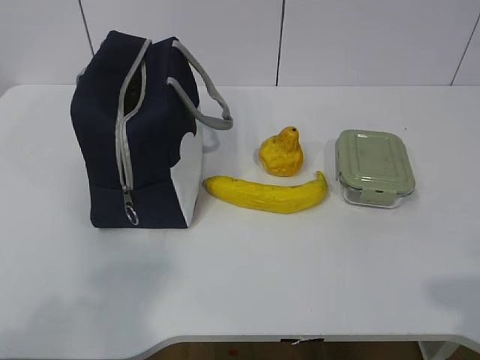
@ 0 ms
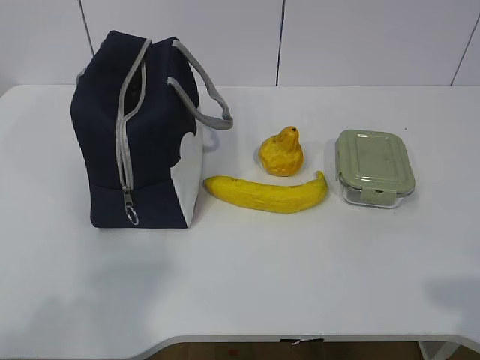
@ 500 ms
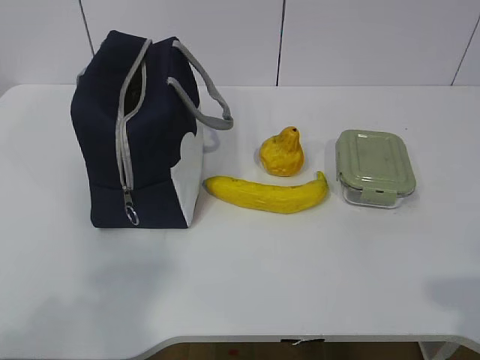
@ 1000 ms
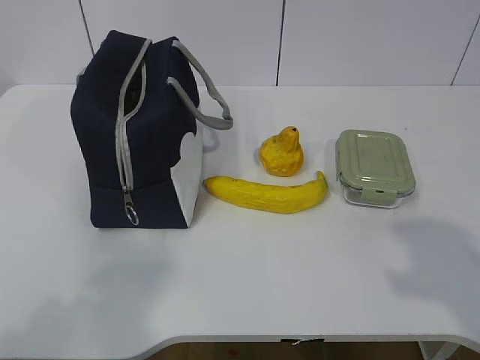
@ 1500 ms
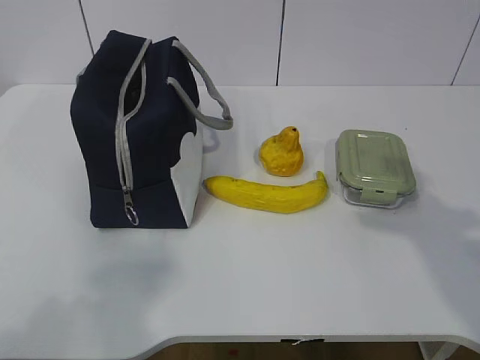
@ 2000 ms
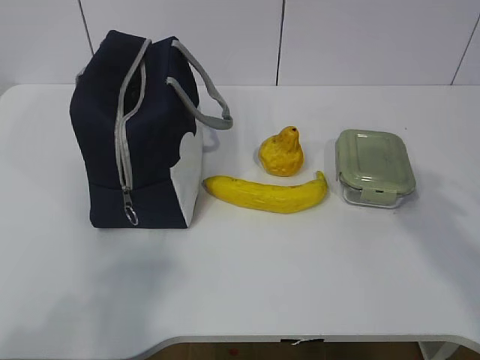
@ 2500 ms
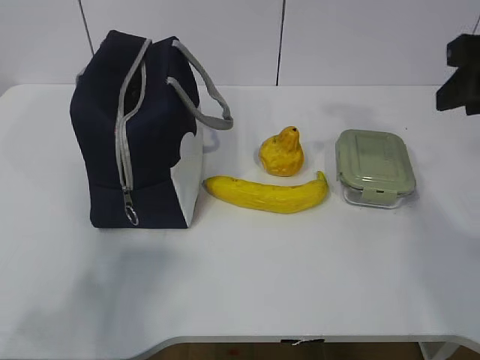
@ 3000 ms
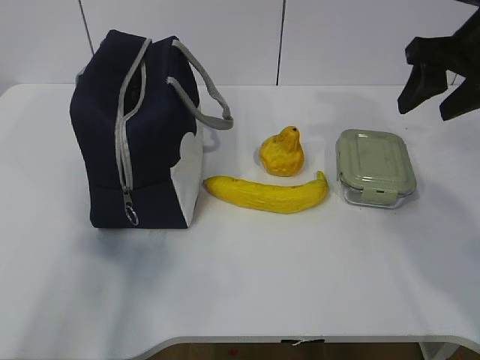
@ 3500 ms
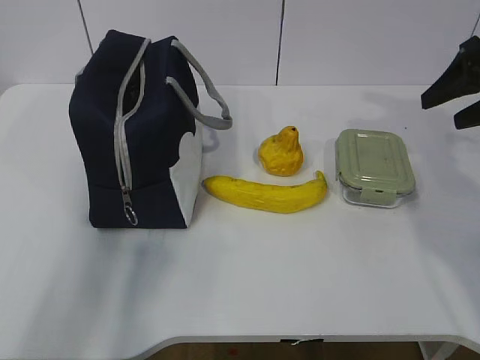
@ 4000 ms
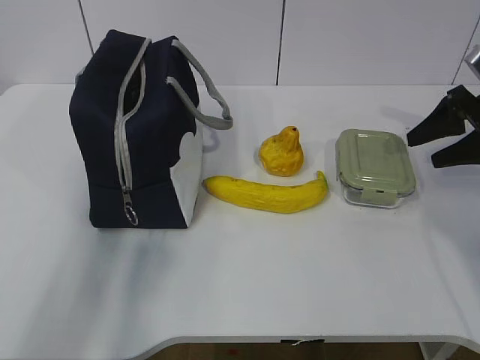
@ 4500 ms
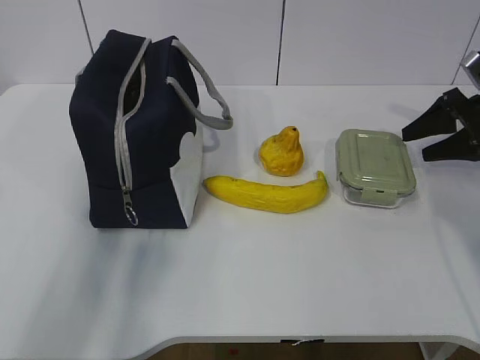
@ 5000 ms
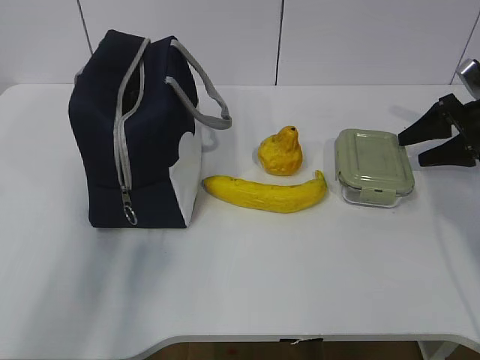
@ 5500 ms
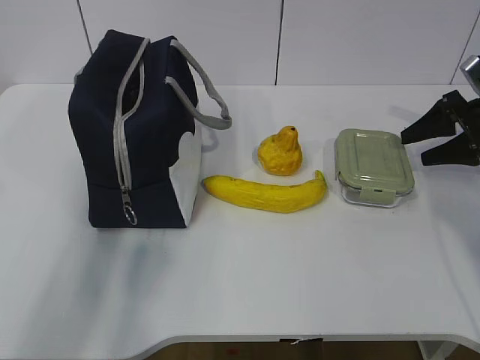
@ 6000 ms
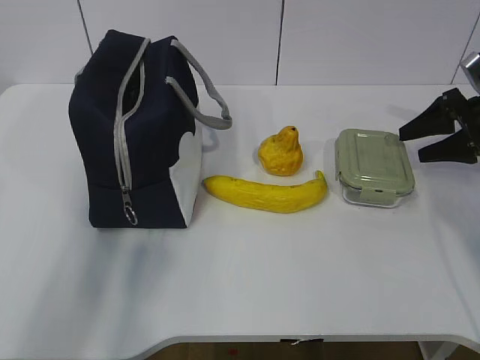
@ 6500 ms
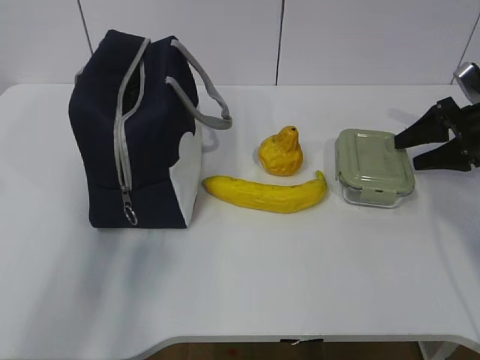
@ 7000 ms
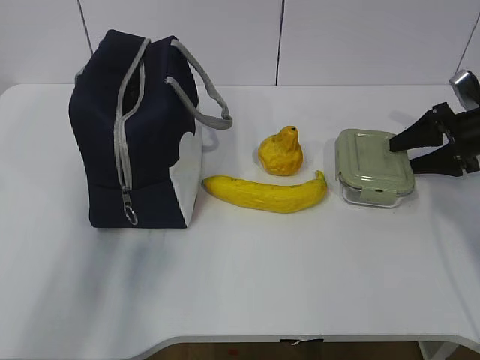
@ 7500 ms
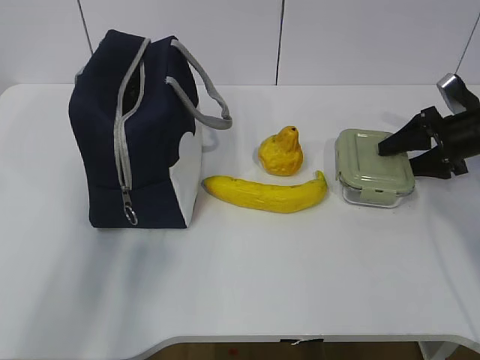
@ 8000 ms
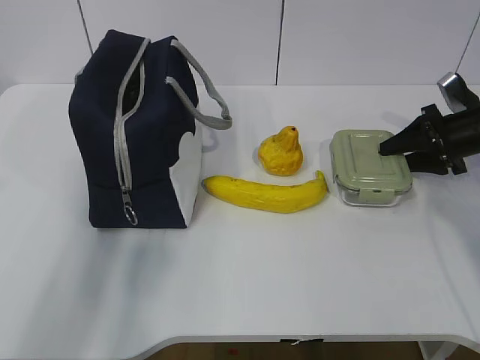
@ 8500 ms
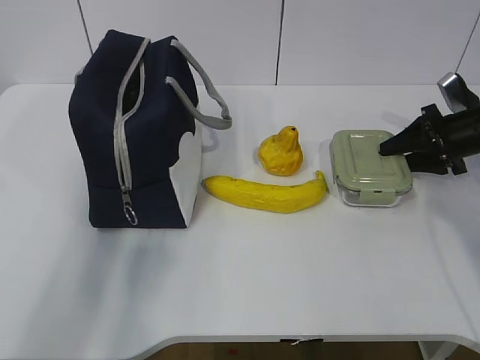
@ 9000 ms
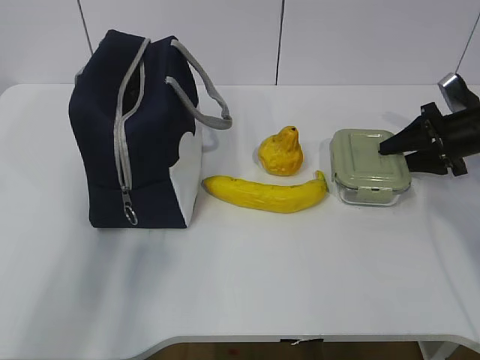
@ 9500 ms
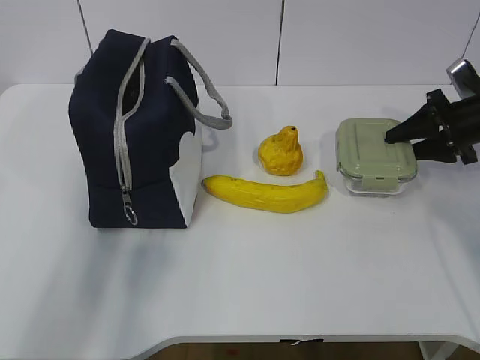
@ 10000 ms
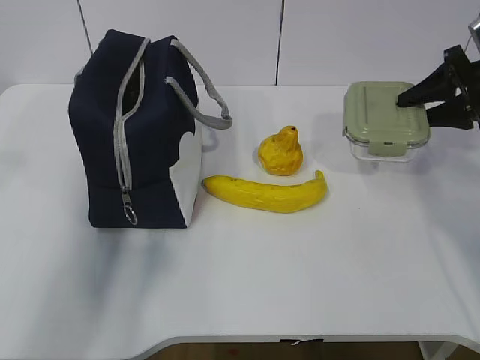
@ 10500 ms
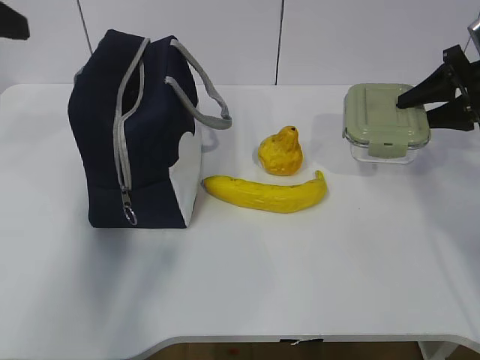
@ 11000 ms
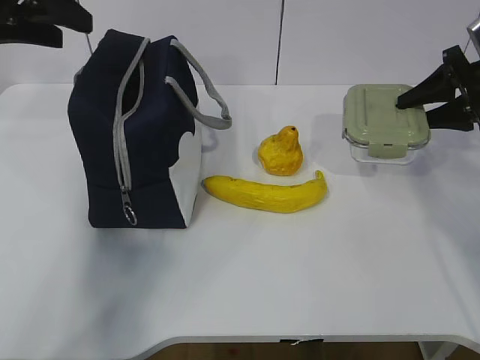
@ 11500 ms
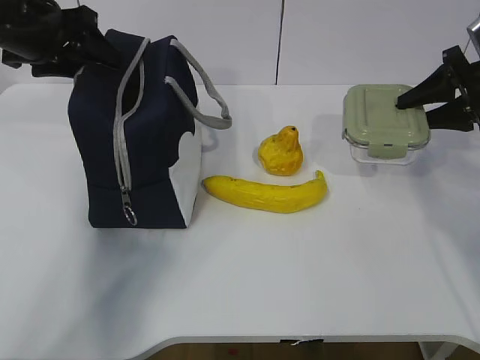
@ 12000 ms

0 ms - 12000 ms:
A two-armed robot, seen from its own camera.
Step, 0 ms - 8500 ms: Grasp the box with the right gripper.
2000 ms - 4000 ms: The right gripper moves forward, roughly 25 cm, and opens up. The left gripper is displaced forward and upward by some 15 cm.
4000 ms - 6000 ms: The right gripper moves downward, some 10 cm.
6000 ms - 10000 ms: The grippers stay close to where they were, moving slightly.
10000 ms - 12000 ms: The right gripper goes approximately 5 cm upward. Meanwhile the left gripper goes about 25 cm forward, and opens up.

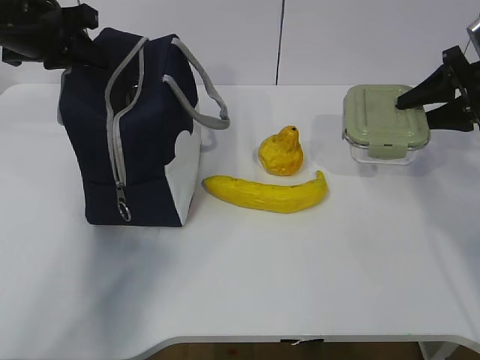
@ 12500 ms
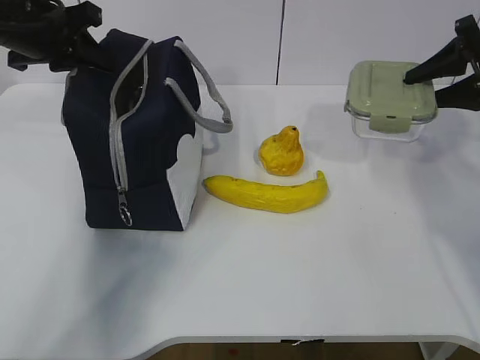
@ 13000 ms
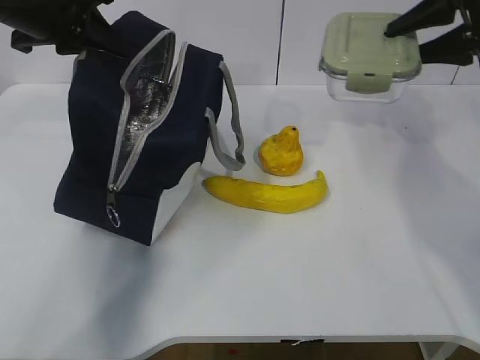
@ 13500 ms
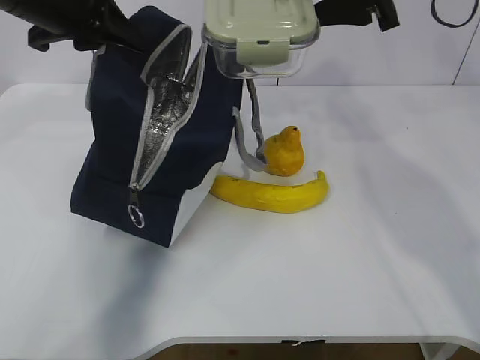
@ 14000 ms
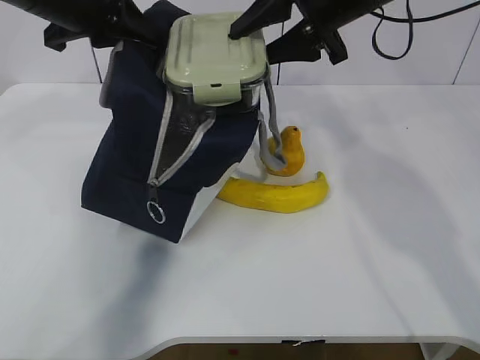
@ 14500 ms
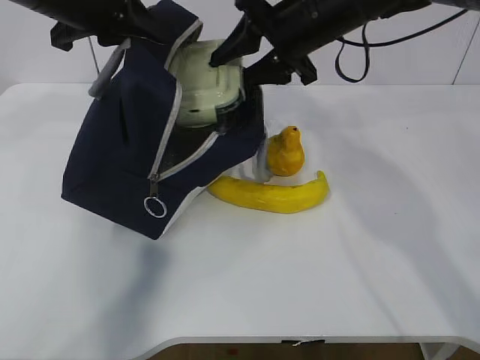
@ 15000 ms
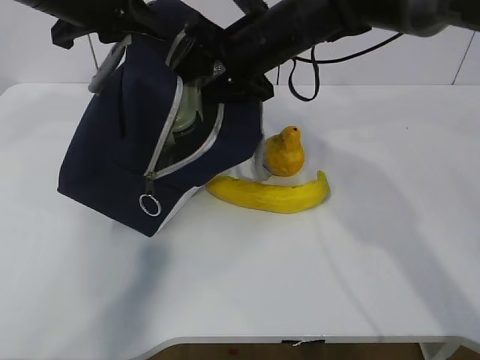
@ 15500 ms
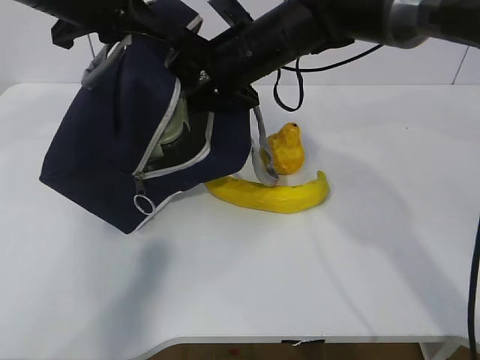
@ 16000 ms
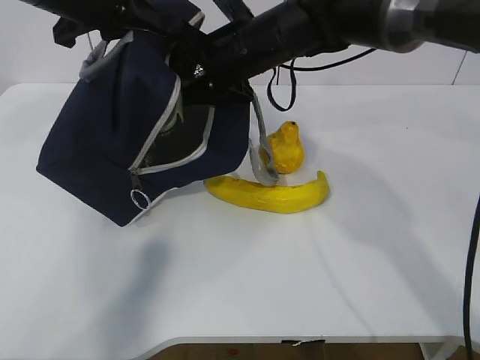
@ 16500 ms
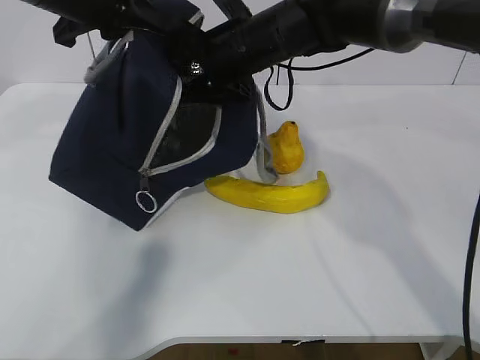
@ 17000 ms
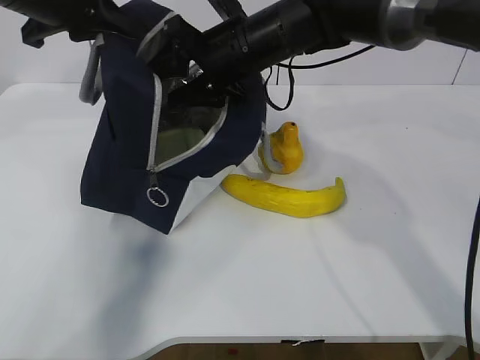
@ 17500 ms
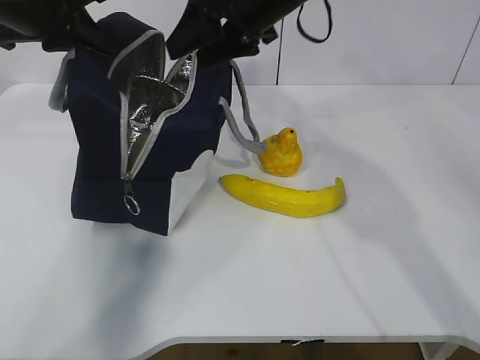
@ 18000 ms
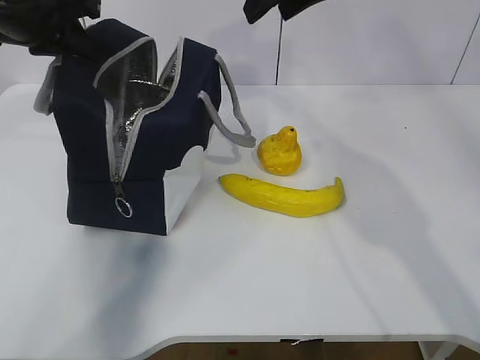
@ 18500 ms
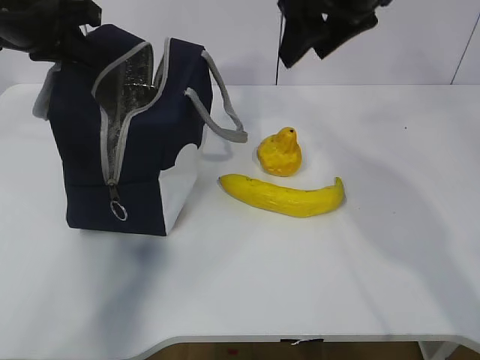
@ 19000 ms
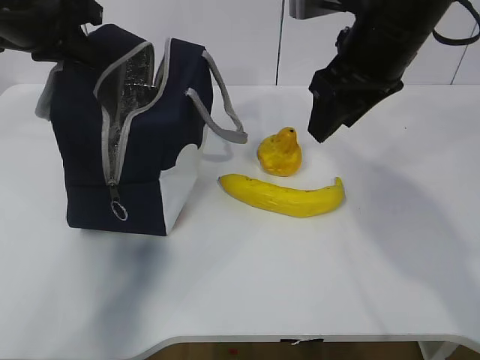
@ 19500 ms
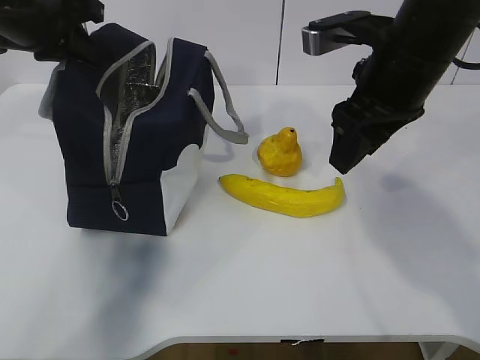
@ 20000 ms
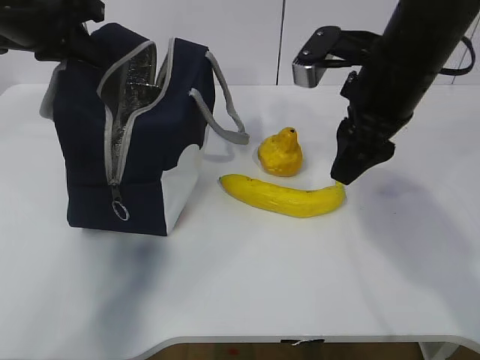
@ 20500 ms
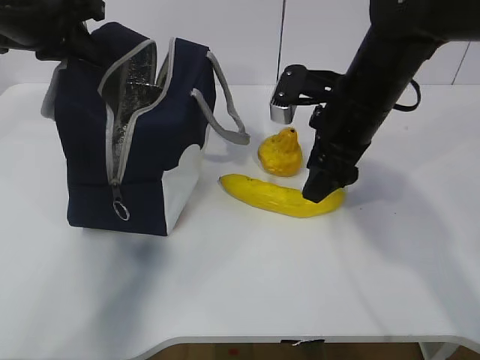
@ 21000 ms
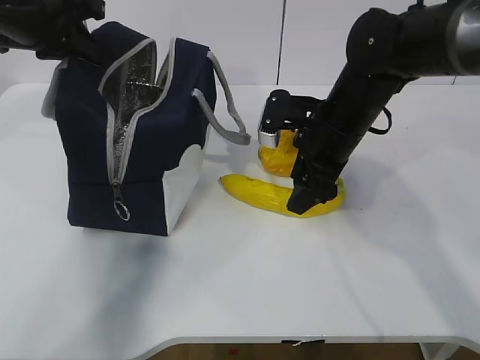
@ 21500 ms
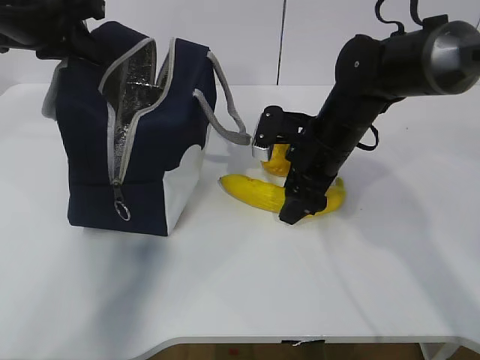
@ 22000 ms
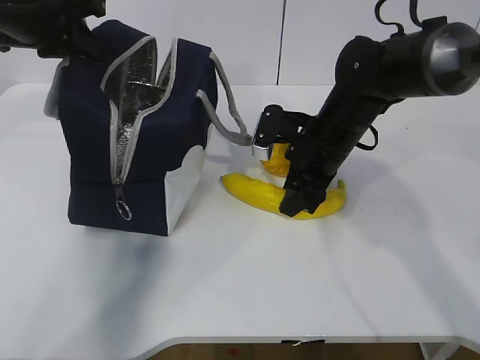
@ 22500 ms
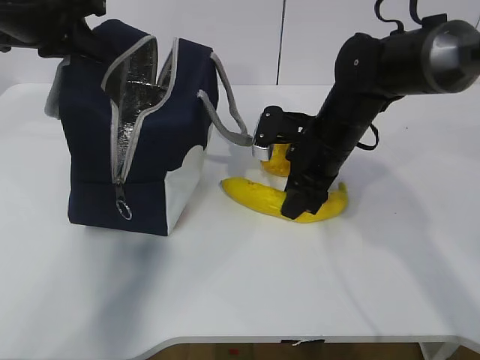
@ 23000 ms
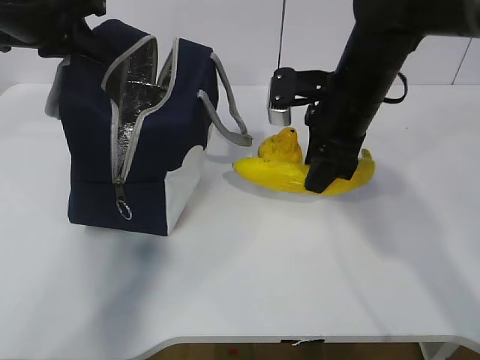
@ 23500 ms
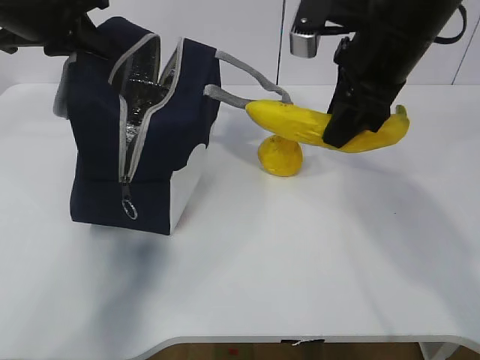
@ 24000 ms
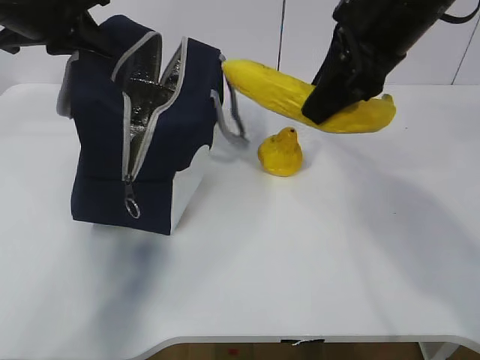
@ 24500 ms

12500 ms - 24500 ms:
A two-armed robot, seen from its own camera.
Step, 13000 ms - 17500 ms: Place the box into the package with the right gripper.
Step, 18000 ms - 22500 ms: Grasp the banana with the right gripper.
12500 ms - 14500 ms: The left gripper is displaced to the right by roughly 5 cm, while the right gripper heads to the left and upward, covering some 25 cm.
14500 ms - 16500 ms: The right gripper moves to the left and downward, roughly 10 cm.
16500 ms - 18500 ms: The right gripper heads upward and to the right, covering approximately 15 cm; the left gripper heads to the left, covering approximately 5 cm.
18500 ms - 20500 ms: The right gripper travels backward and downward by some 15 cm.
20500 ms - 22500 ms: The right gripper travels downward and forward by about 15 cm.
22500 ms - 24500 ms: The right gripper moves upward, about 20 cm.

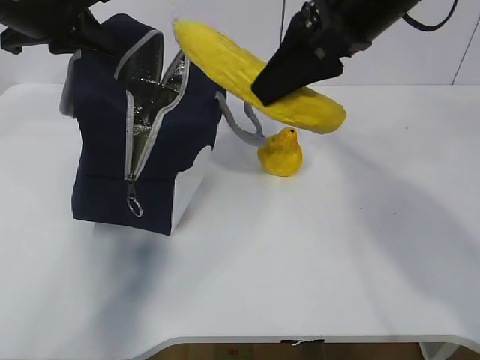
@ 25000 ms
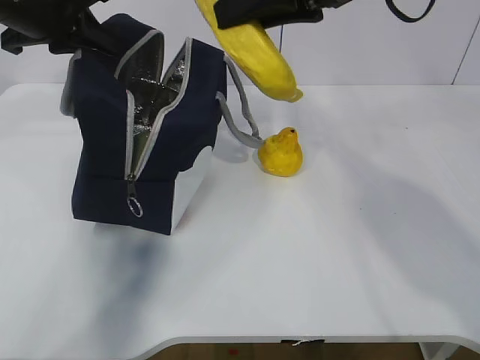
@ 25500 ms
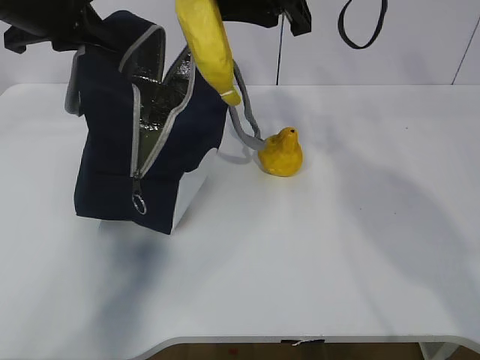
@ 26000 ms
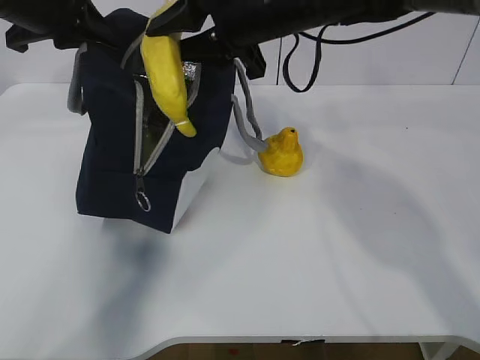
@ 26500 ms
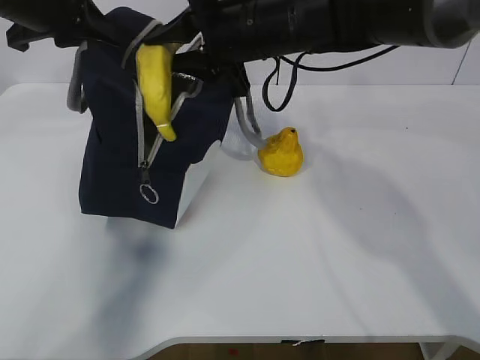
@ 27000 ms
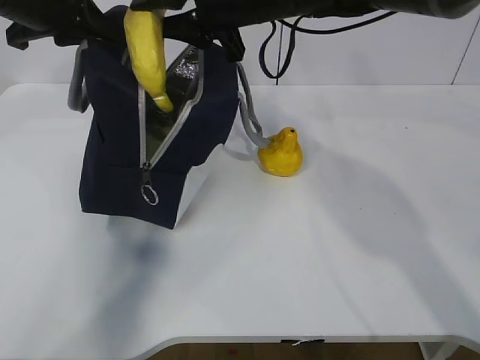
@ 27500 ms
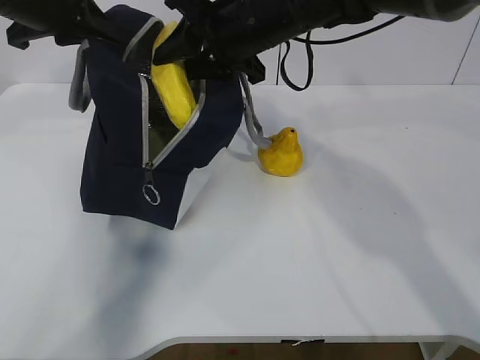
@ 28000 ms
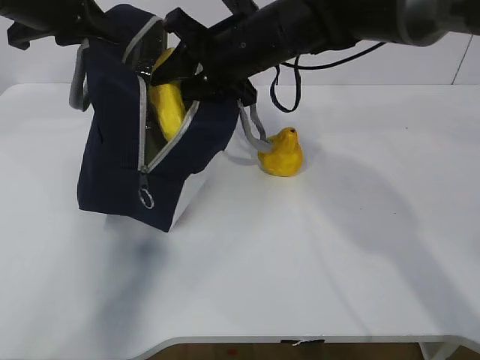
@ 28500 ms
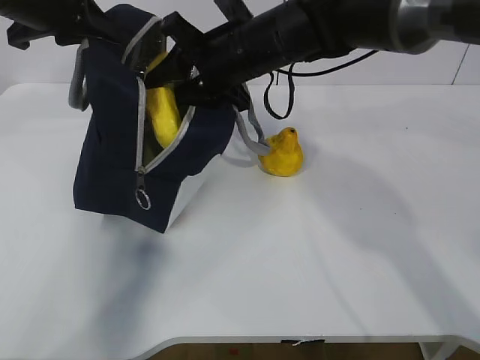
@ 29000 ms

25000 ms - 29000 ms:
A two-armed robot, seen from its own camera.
25000 ms - 27000 ms: The right gripper is displaced forward, to the left and downward by some 15 cm.
